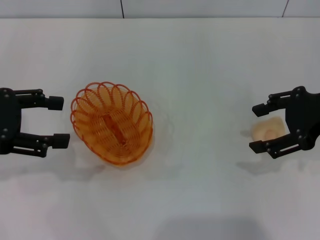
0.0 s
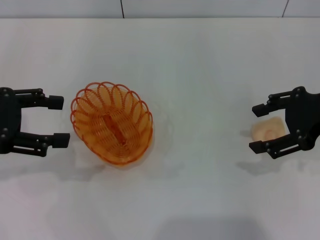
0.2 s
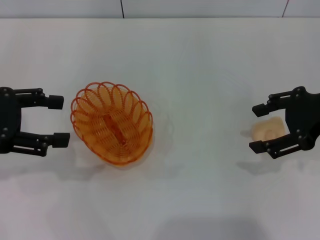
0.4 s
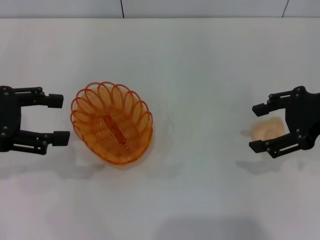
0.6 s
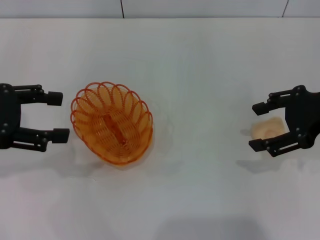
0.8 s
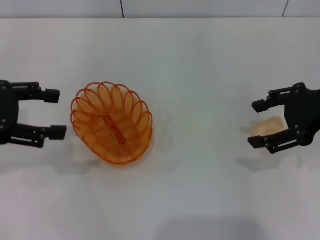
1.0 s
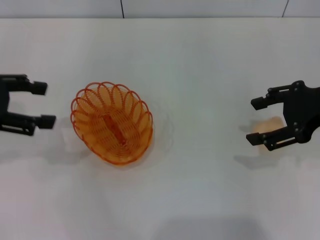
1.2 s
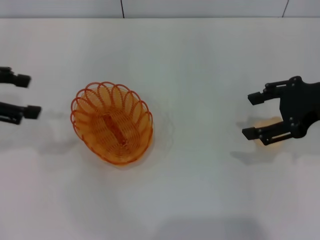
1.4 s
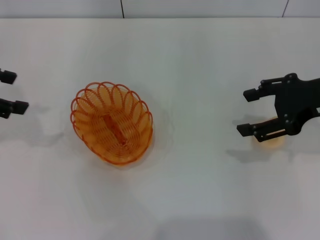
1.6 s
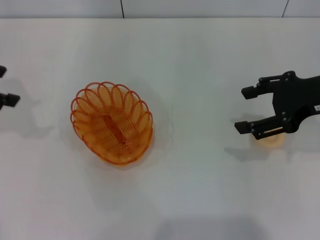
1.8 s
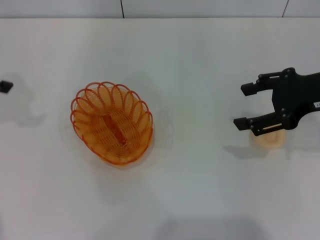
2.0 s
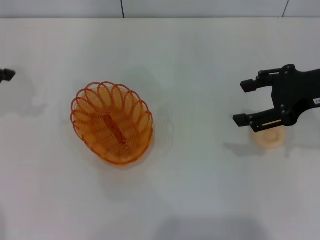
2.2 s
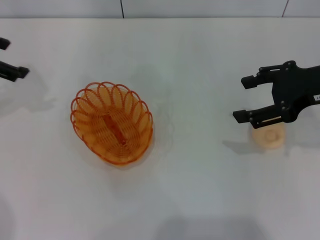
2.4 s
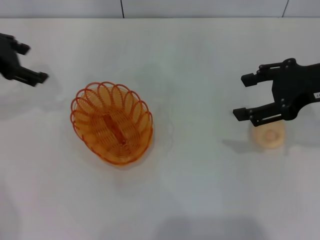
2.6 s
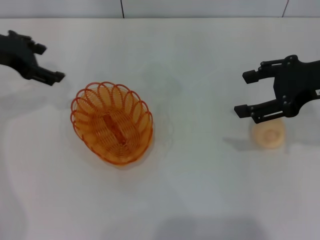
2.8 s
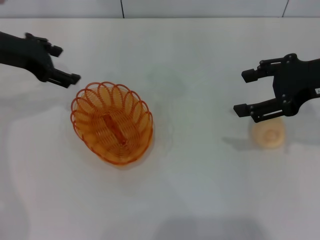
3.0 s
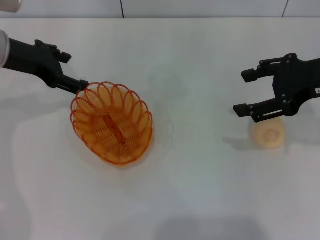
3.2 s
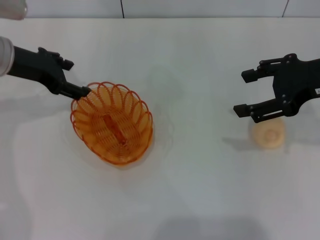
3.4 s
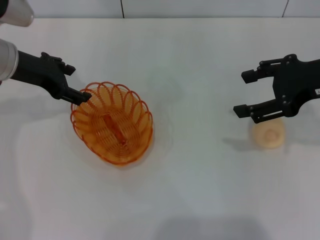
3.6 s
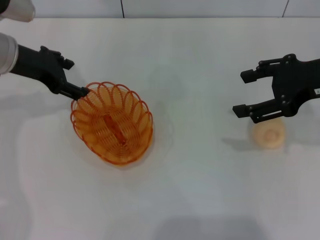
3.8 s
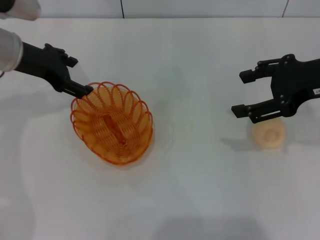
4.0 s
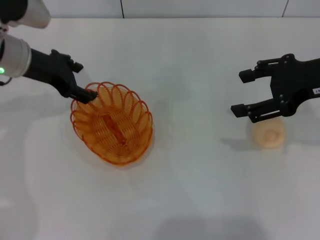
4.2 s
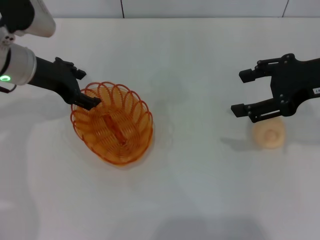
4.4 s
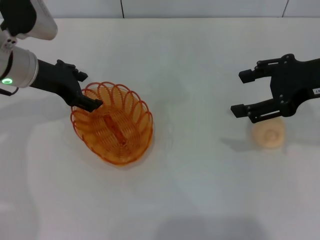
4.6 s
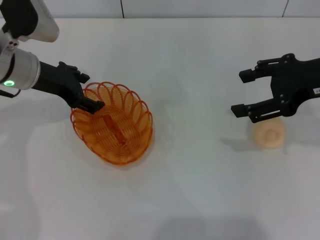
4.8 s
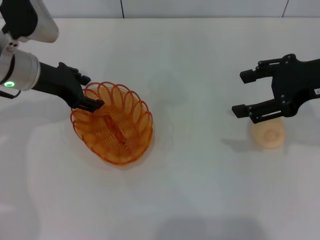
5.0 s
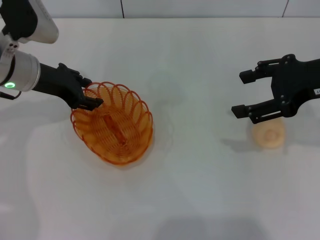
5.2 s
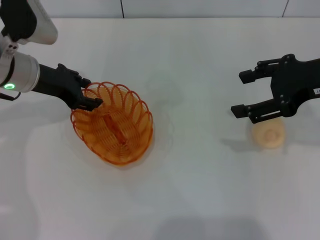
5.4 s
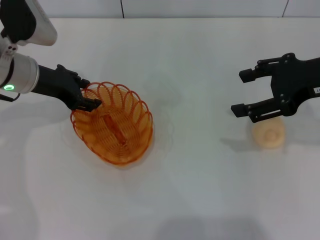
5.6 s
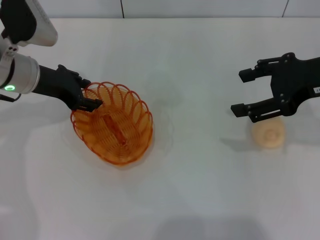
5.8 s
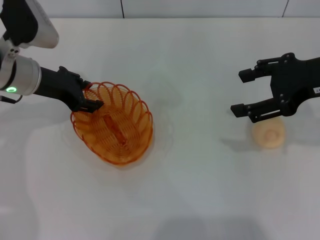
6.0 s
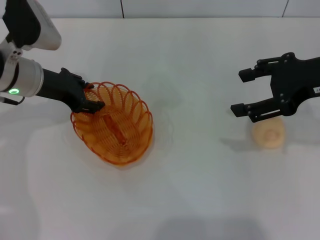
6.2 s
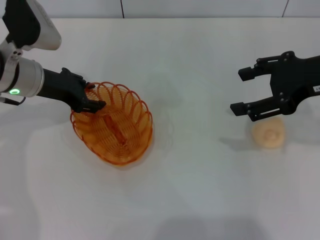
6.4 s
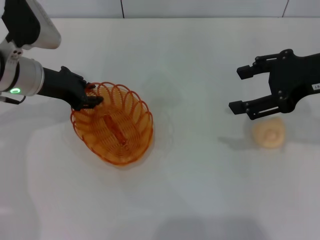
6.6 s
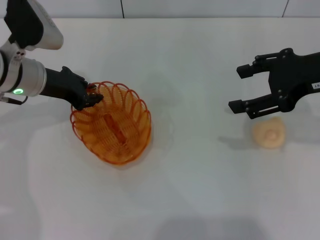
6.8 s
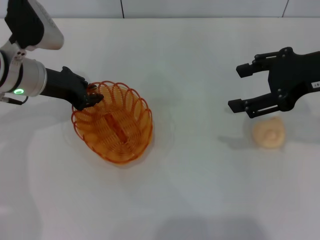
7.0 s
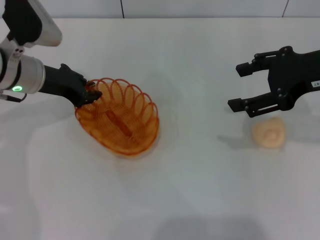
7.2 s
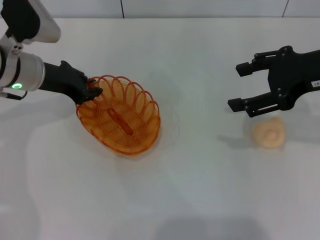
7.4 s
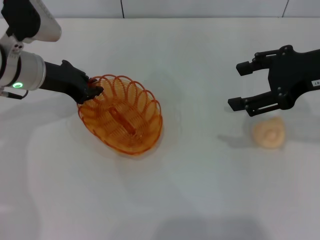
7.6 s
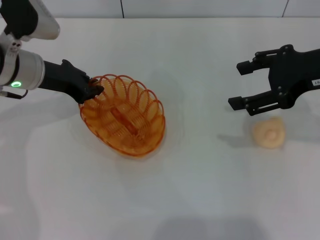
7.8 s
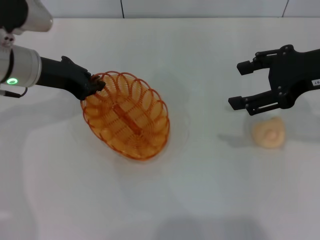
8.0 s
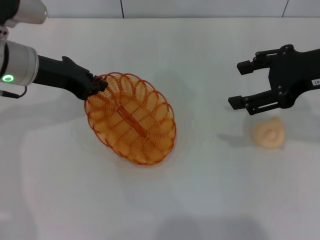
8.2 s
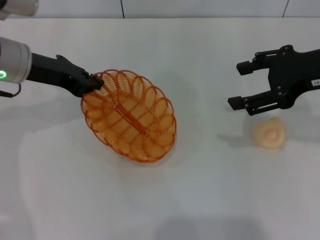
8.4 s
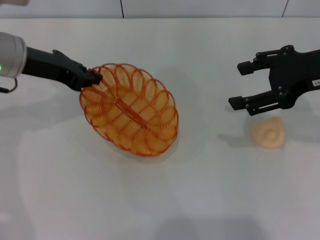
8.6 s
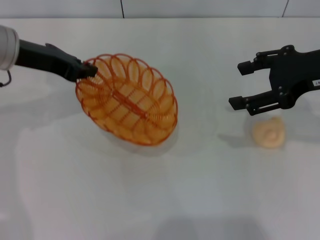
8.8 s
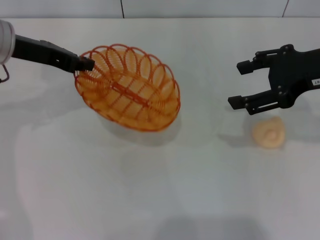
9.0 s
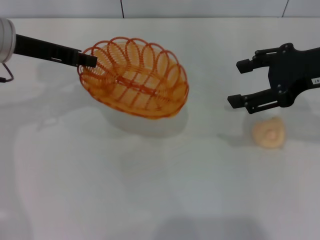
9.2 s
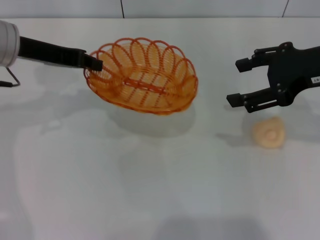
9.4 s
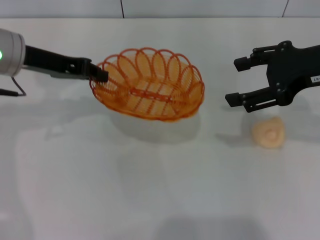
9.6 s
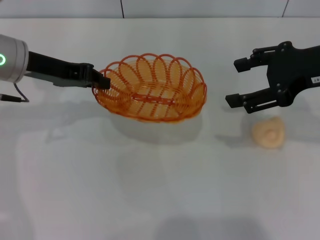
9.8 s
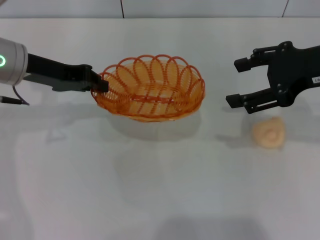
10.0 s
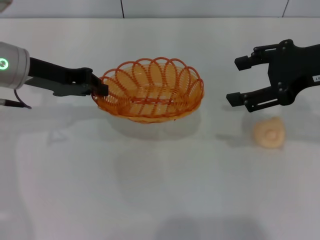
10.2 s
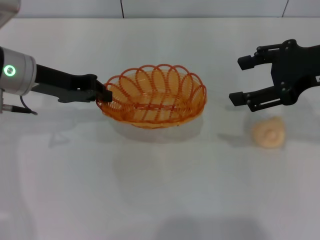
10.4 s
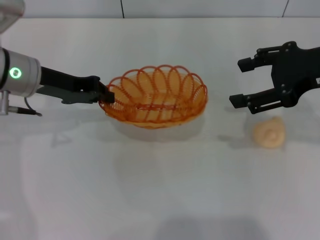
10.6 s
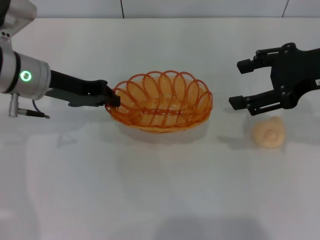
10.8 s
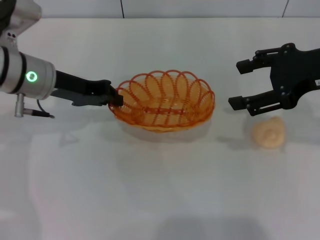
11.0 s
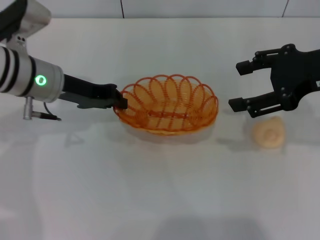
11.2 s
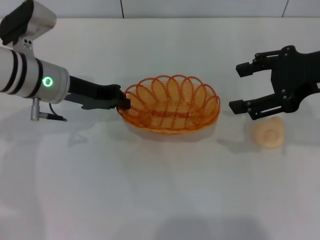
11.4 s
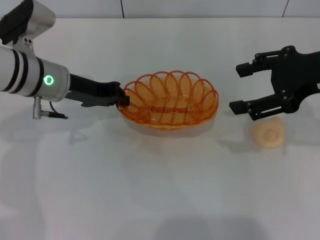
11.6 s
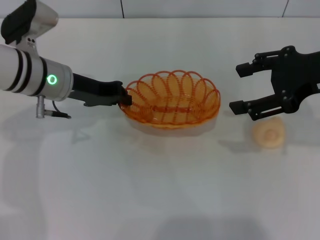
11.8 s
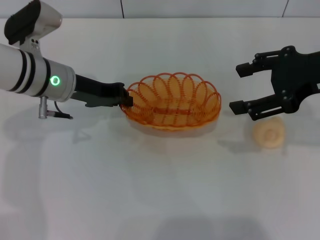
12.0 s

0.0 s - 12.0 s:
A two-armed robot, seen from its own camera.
Step, 0.0 s - 8.2 s: Pick up the basket with the left gripper.
0.0 s - 1.6 s: The left gripper moves forward, roughly 5 cm.
1.6 s - 3.0 s: The left gripper moves to the right and forward, approximately 10 cm.
3.0 s - 4.4 s: The left gripper shifts by roughly 5 cm.
4.4 s - 6.0 s: The grippers move only a little.
6.0 s - 7.6 s: The left gripper closes up.
7.6 s - 9.0 s: The left gripper heads upward, covering roughly 5 cm.
10.4 s - 12.0 s: The left gripper moves approximately 5 cm.

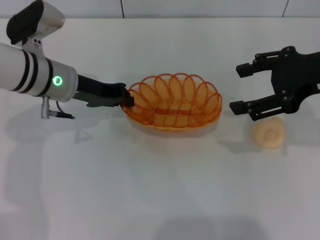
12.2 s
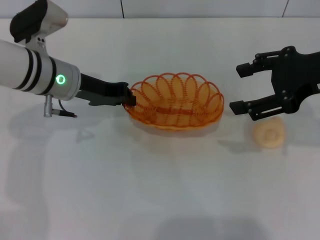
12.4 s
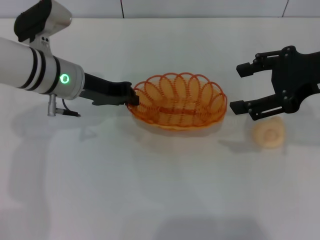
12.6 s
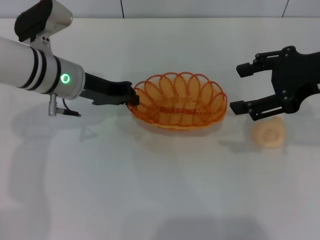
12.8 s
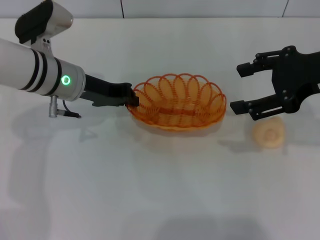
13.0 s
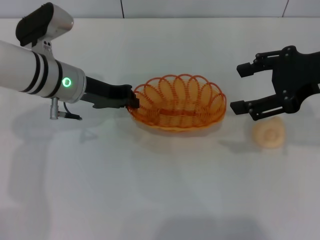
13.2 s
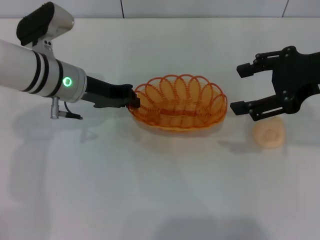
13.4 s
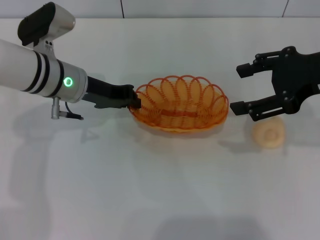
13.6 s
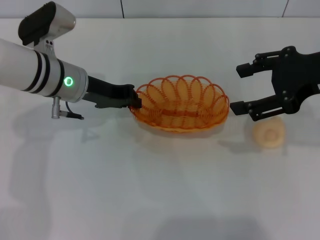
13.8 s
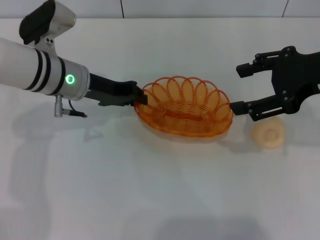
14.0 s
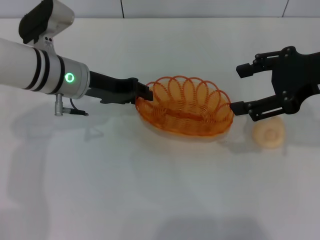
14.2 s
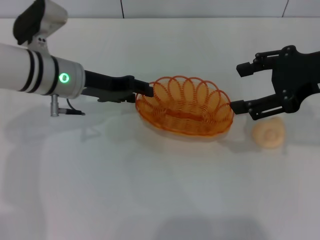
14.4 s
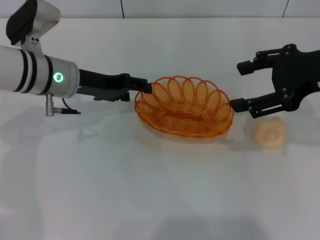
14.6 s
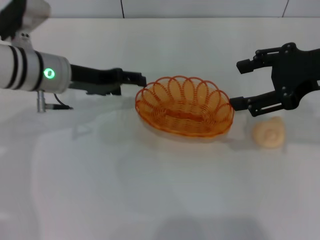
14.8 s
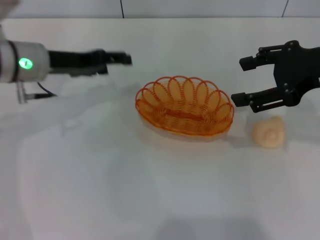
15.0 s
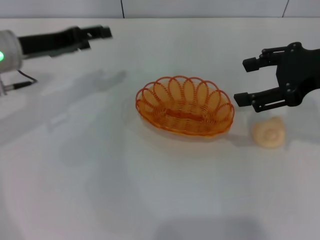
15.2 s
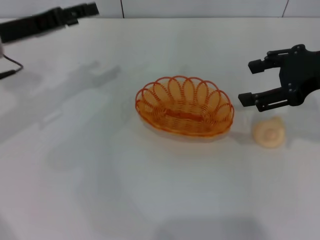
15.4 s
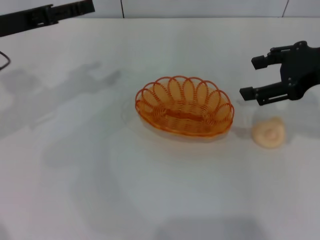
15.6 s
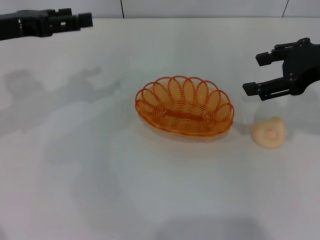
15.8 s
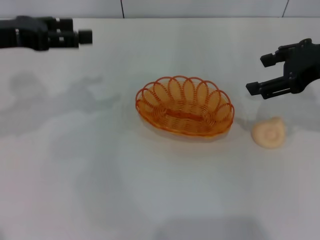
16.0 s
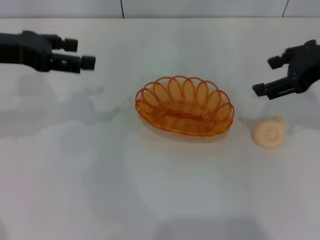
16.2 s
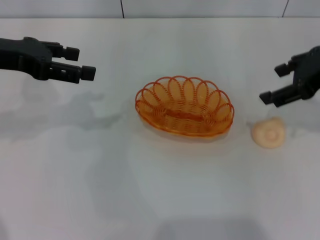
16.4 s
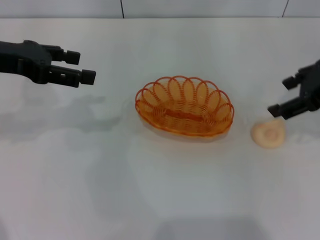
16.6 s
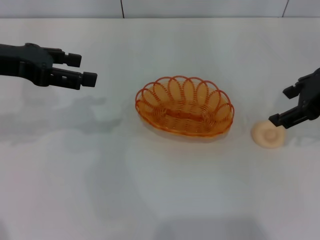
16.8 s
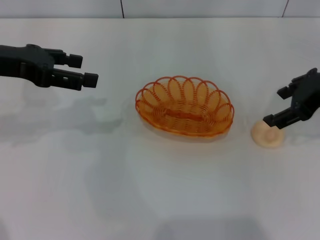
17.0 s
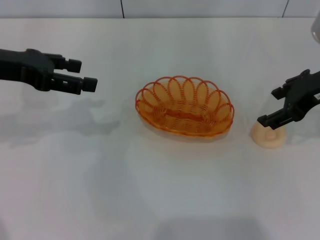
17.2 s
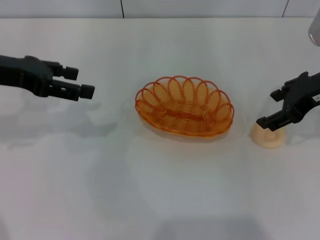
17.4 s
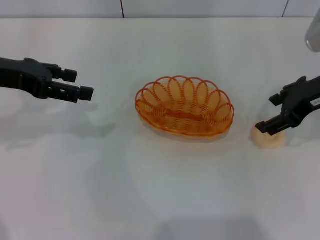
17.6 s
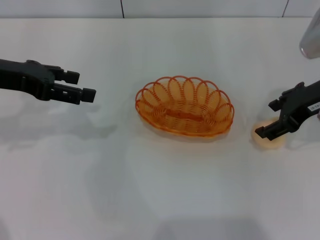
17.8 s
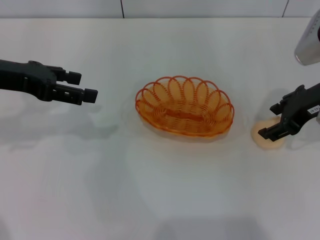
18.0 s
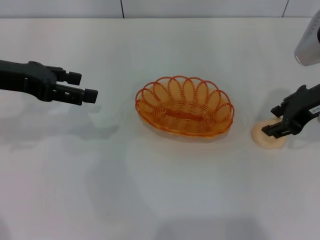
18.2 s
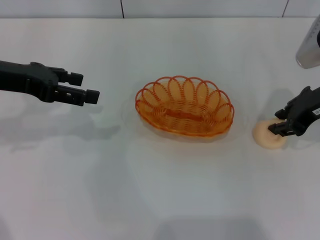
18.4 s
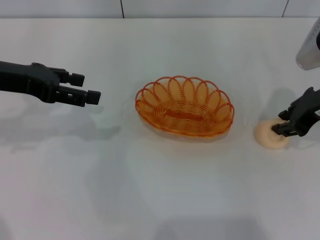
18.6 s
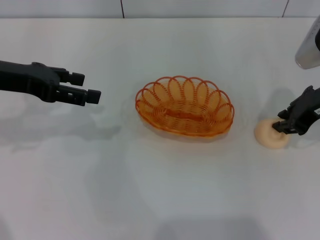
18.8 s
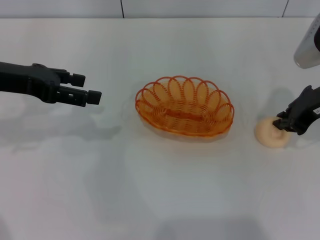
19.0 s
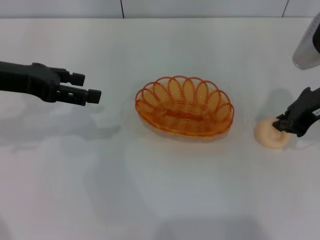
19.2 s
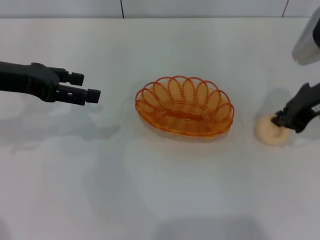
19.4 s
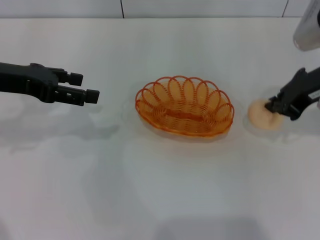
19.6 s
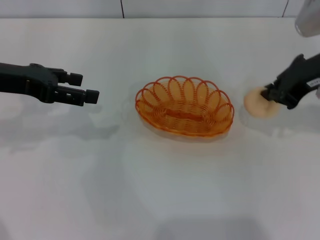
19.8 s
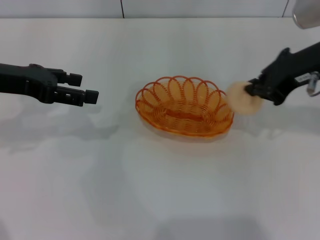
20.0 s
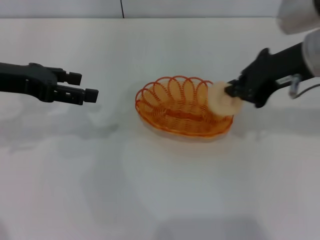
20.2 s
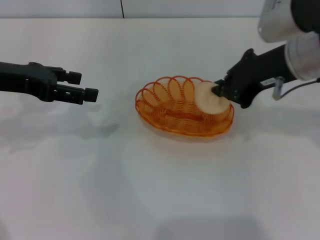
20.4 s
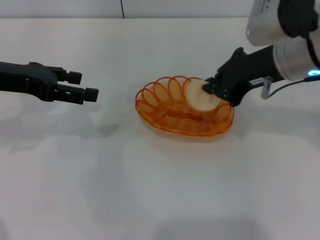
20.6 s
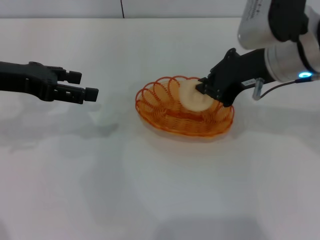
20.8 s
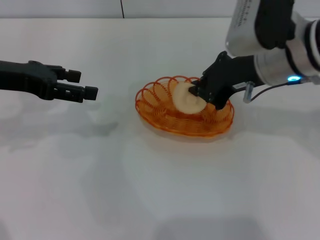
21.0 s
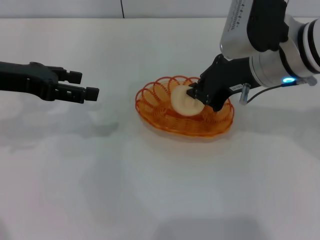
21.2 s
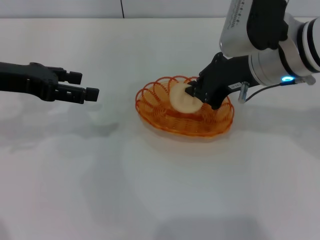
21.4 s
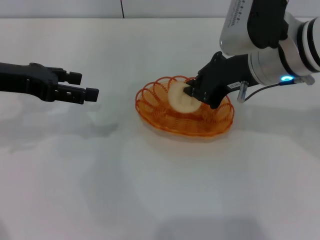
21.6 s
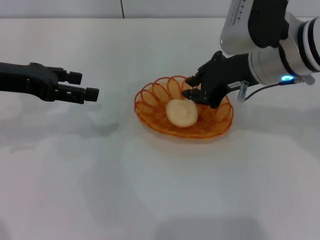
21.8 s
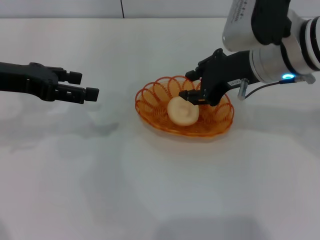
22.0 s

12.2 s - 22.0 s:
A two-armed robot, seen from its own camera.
Step, 12.2 s - 15.8 s: Place the basket in the center of view with the left gripper.
Step, 16.0 s - 19.8 s: Pick up the egg yolk pastry with the right gripper.
12.2 s - 13.6 s: Both grippers stay put.
13.6 s - 15.0 s: The left gripper shifts some 5 cm to the left, and opens its fingers.
15.0 s - 16.4 s: The left gripper is displaced upward and to the left by about 10 cm.
16.4 s - 17.8 s: The right gripper moves about 5 cm.
17.8 s - 19.2 s: The right gripper closes its fingers.
19.2 s - 20.6 s: The right gripper goes some 10 cm to the left.
20.6 s - 22.0 s: The grippers stay close to where they were, moving slightly.
